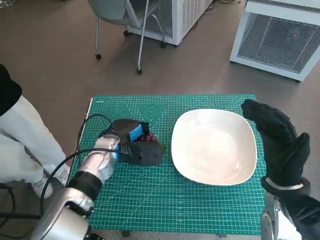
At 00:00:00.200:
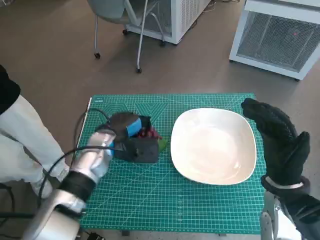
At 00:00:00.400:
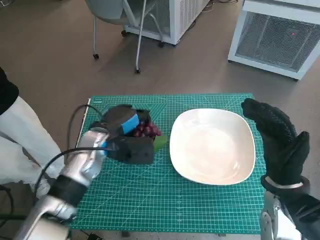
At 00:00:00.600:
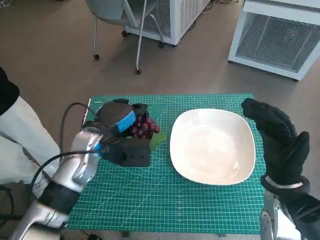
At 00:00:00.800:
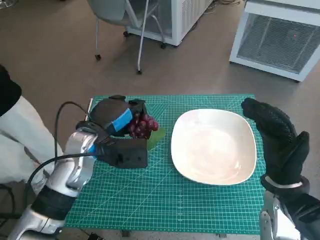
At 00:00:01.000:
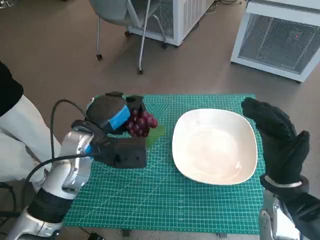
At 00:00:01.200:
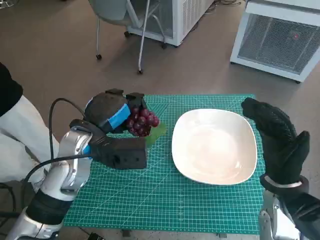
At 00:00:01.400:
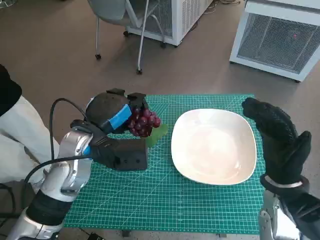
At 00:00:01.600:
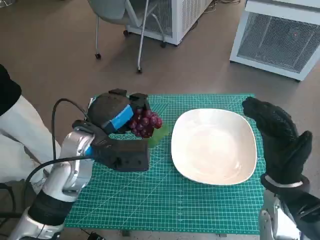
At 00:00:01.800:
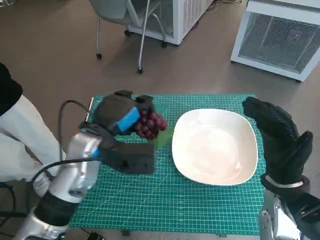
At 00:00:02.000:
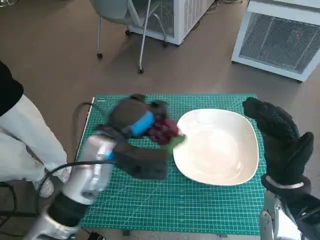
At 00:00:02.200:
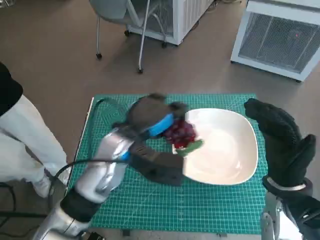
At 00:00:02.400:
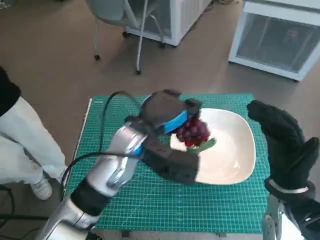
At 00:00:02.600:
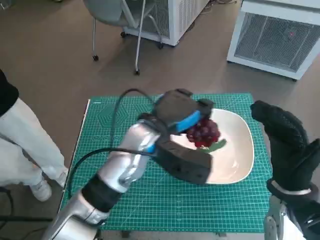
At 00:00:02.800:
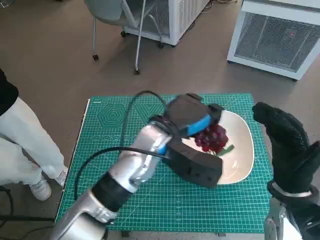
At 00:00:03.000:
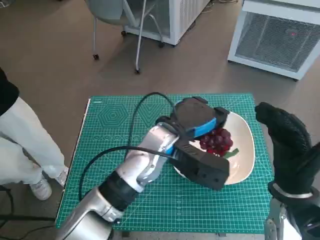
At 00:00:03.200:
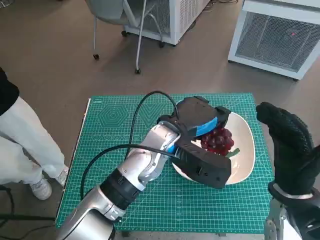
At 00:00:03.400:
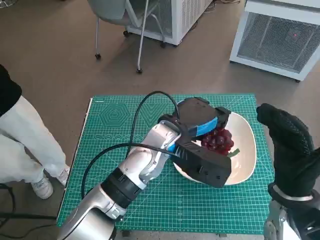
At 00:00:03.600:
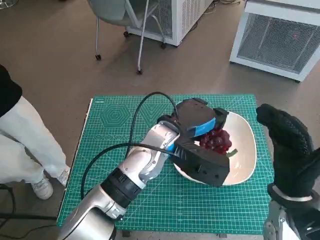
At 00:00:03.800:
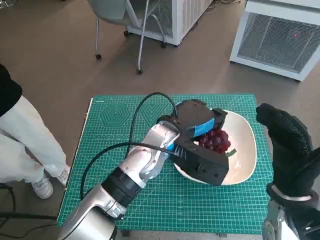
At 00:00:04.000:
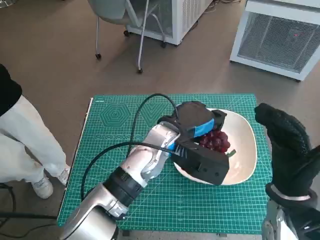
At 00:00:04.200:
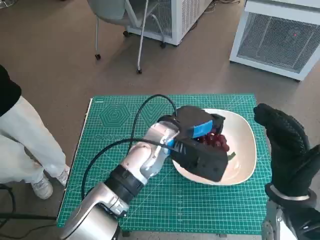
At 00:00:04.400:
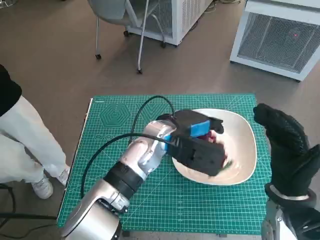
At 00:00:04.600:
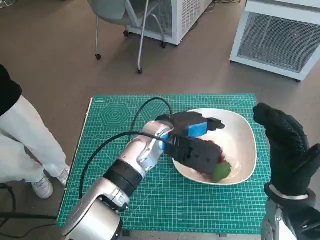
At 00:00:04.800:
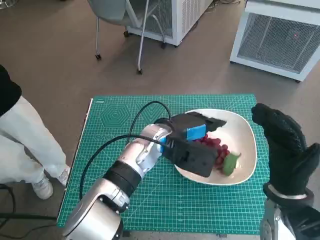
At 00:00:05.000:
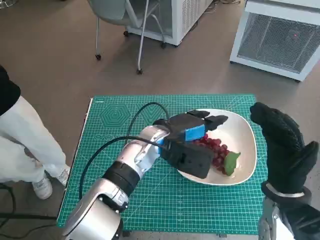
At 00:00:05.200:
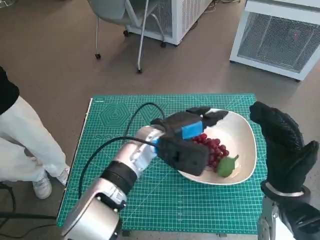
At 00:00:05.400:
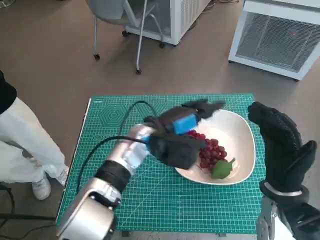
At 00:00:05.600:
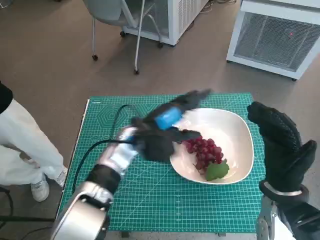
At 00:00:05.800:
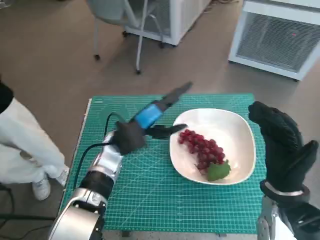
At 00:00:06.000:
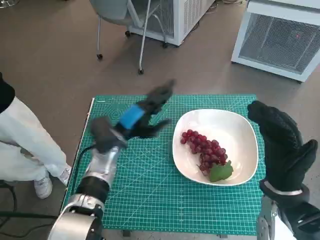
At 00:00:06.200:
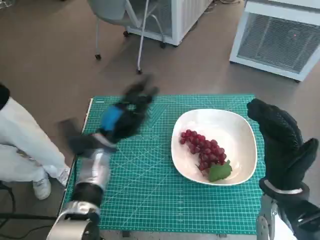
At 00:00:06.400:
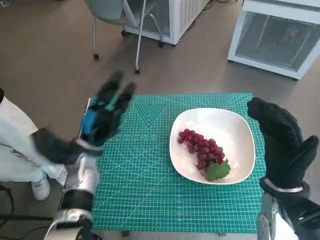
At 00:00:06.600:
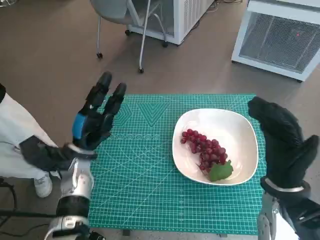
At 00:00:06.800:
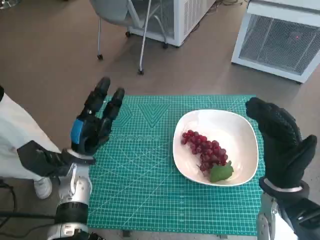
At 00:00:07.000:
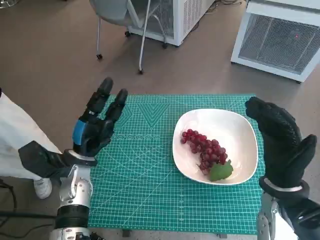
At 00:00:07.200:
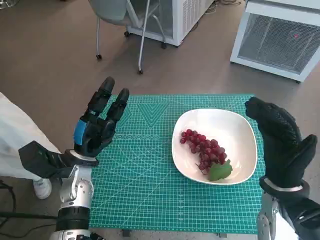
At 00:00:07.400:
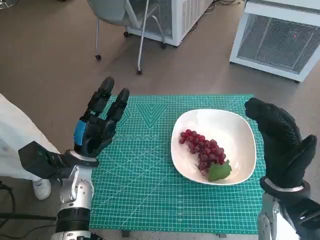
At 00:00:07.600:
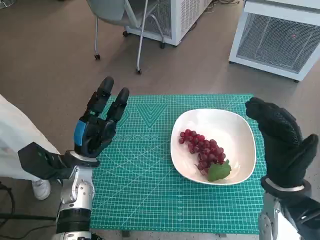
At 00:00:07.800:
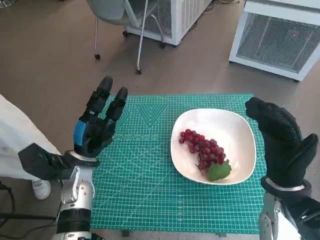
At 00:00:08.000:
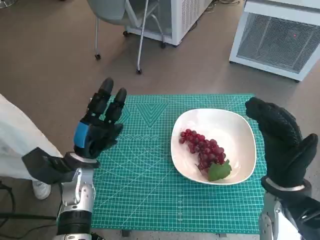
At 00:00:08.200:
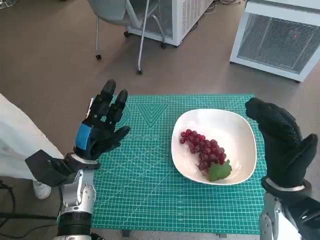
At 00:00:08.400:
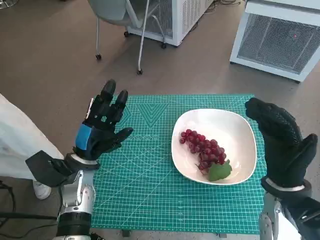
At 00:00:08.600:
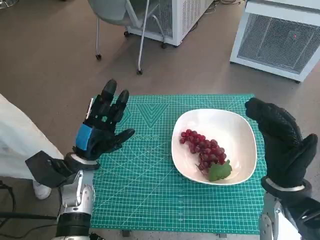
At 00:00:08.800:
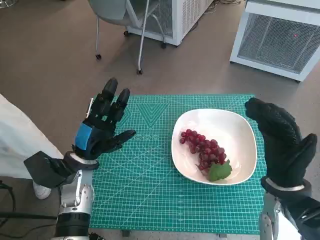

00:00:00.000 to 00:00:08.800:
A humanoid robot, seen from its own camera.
Task of the whole recording: Pick up the grapes and put them on the plate.
Step, 00:00:00.000 to 00:00:04.800: Place the grapes in the plate with left hand.
00:00:00.000 to 00:00:01.400: The left hand heads upward, covering roughly 10 cm.
00:00:01.400 to 00:00:03.000: The left hand travels to the right by about 15 cm.
00:00:03.000 to 00:00:04.400: There are only small adjustments of the hands.
00:00:04.400 to 00:00:05.800: The left hand shifts about 10 cm to the left.
00:00:05.800 to 00:00:07.400: The left hand travels to the left and backward by some 10 cm.
00:00:07.400 to 00:00:08.800: The hands move only a little.
